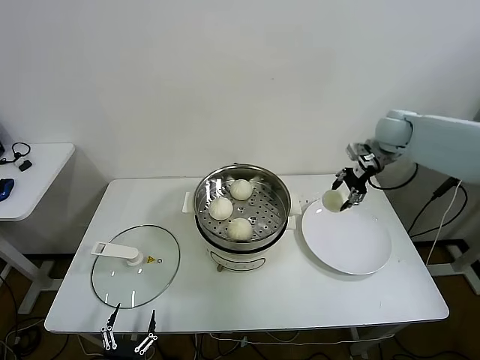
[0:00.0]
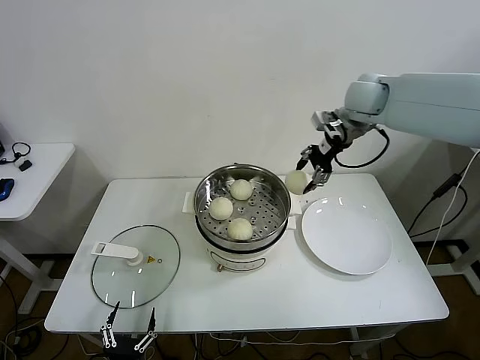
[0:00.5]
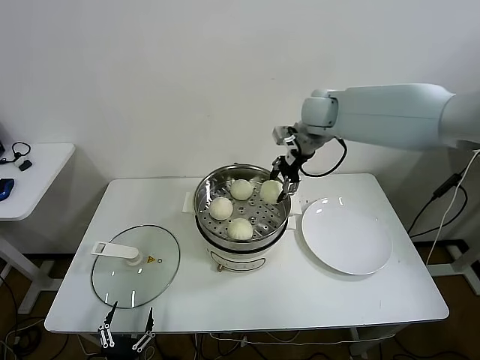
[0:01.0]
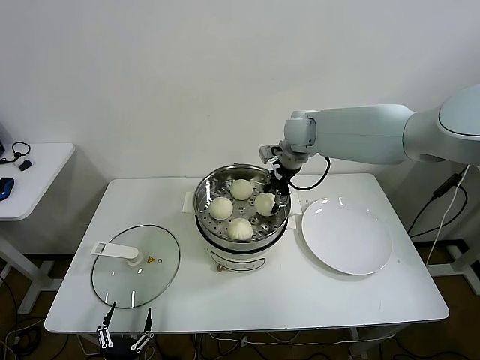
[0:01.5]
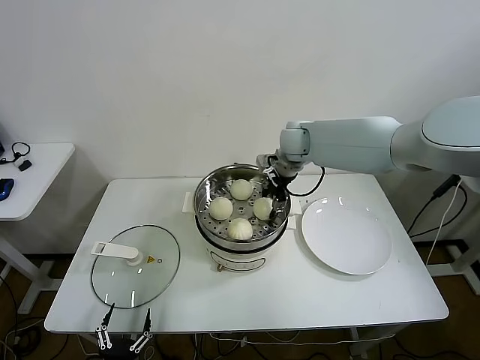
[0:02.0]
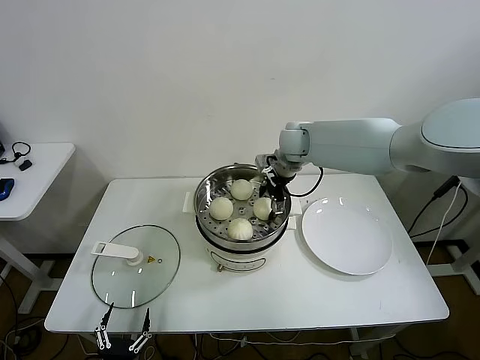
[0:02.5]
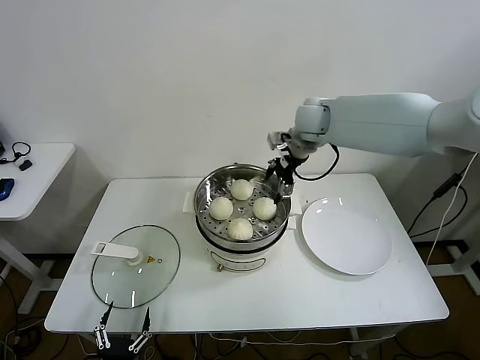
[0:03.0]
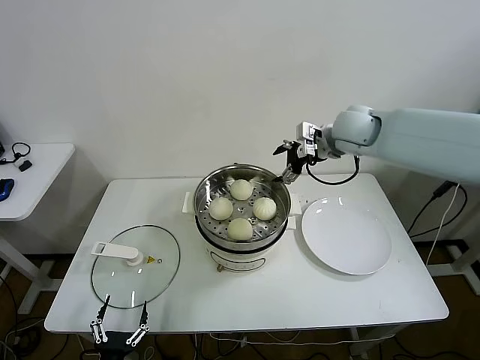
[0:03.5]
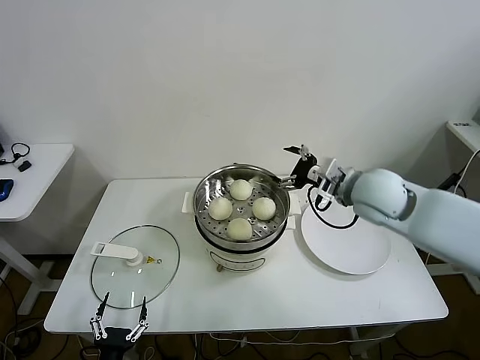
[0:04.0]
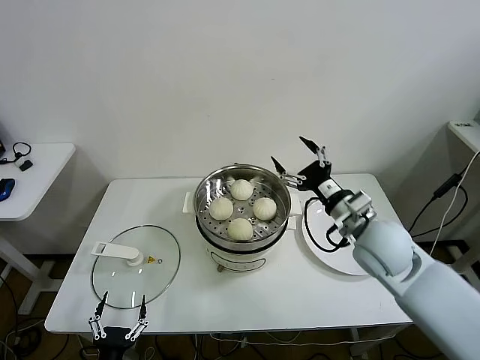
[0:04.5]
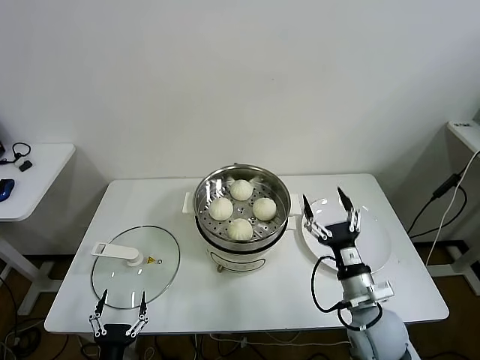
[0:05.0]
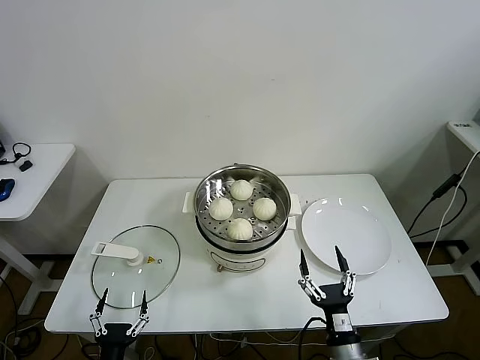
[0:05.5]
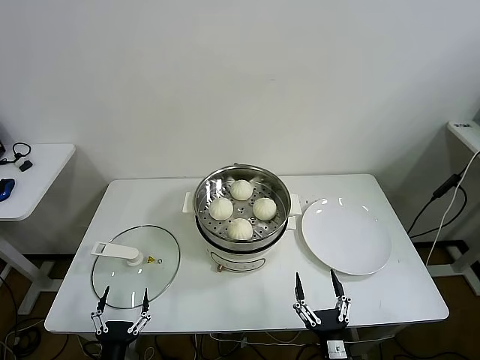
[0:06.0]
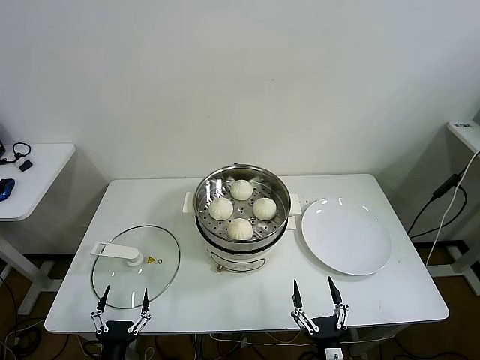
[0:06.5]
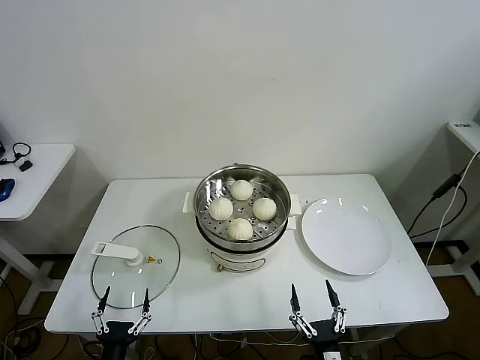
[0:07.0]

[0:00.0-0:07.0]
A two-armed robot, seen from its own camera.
Task of the whole recording: take steamed baozi put them in steamer.
Step, 0:00.0 to 0:03.0: Place the baozi on the steamer with right gripper.
0:00.0 to 0:02.0: The right gripper moves to the left, approximately 25 cm.
0:02.0 to 0:03.5: The right gripper shifts roughly 15 cm to the right, upward and backward, and opens up.
0:03.5 to 0:05.0: The right gripper moves backward and downward, approximately 40 cm.
0:05.0 to 0:07.0: The right gripper heads backward and downward, covering about 20 cm.

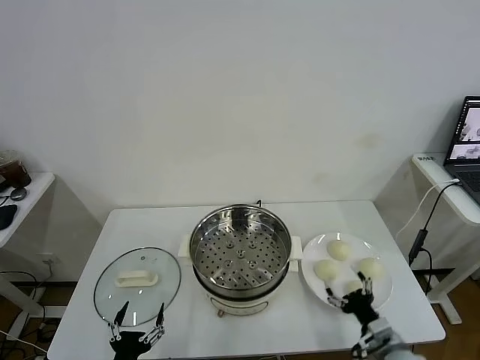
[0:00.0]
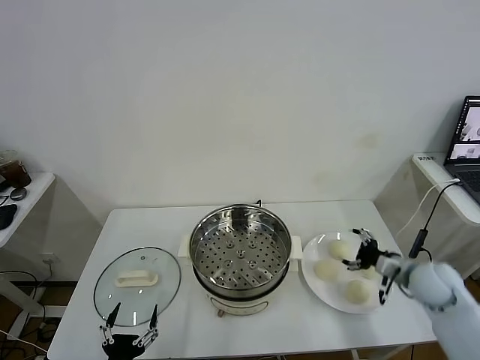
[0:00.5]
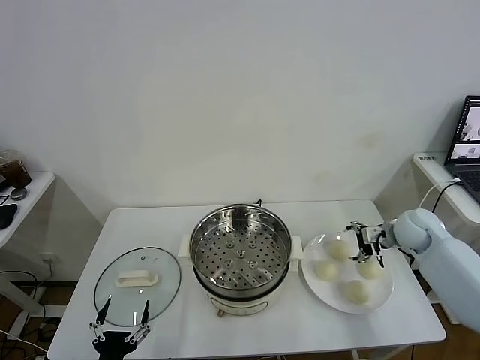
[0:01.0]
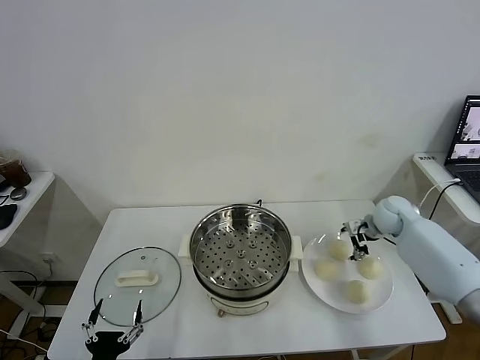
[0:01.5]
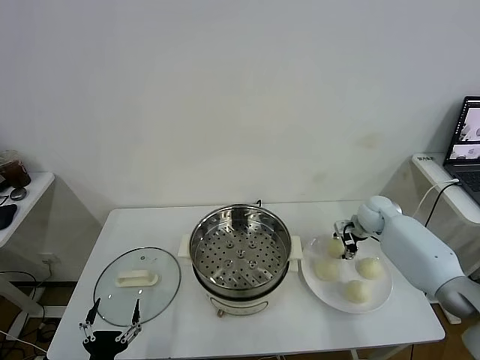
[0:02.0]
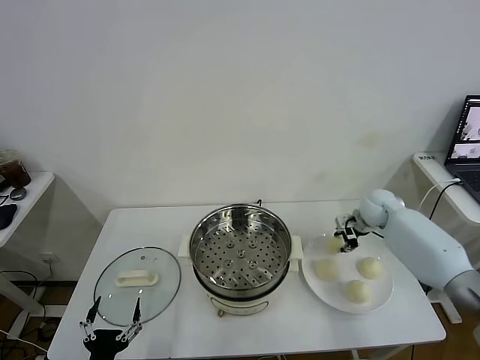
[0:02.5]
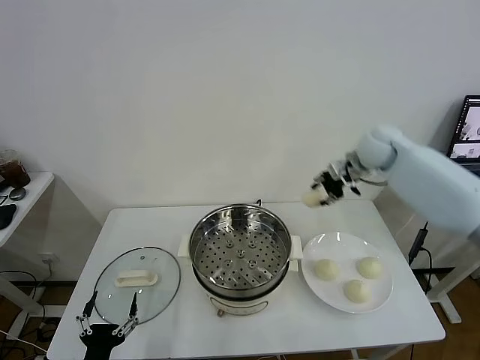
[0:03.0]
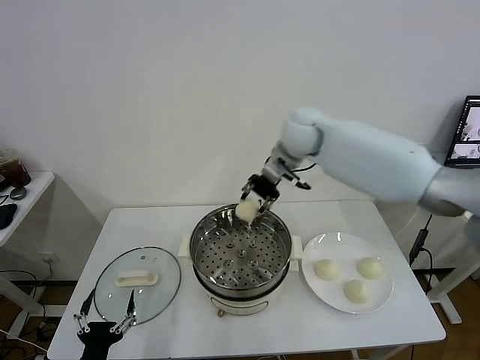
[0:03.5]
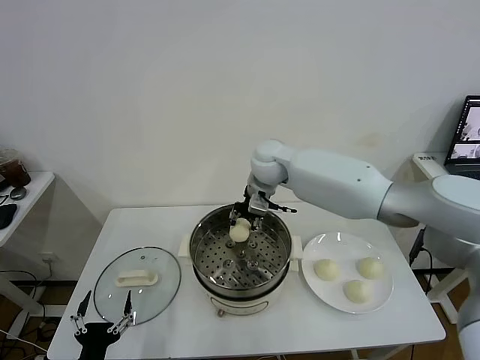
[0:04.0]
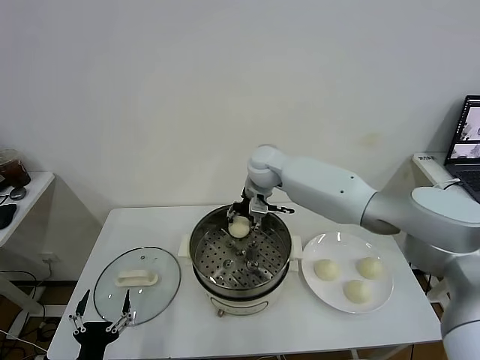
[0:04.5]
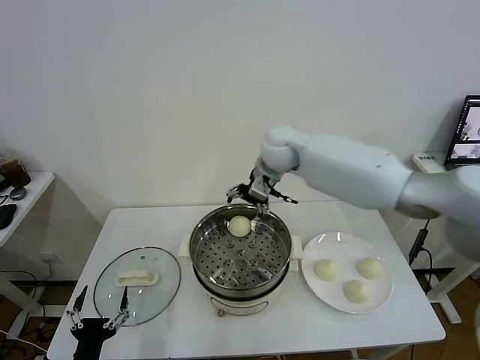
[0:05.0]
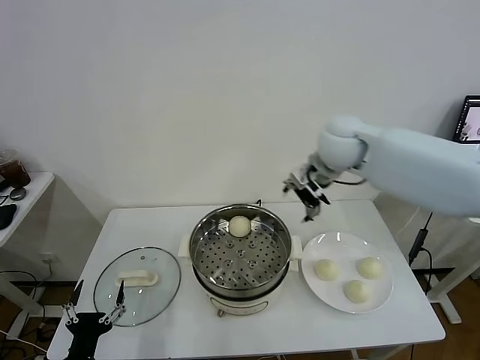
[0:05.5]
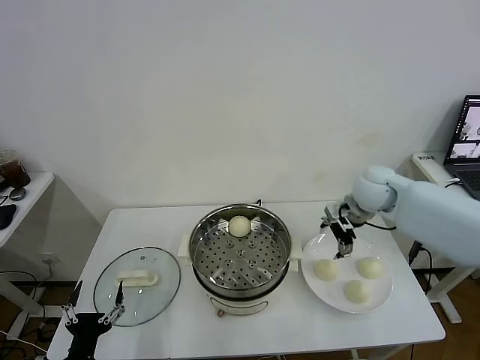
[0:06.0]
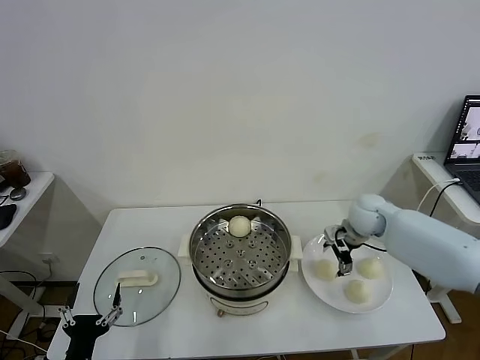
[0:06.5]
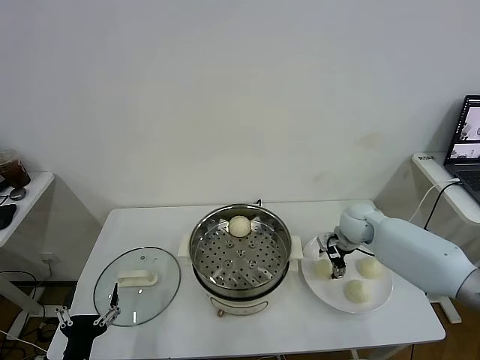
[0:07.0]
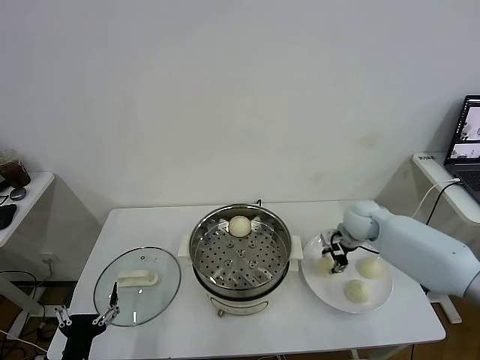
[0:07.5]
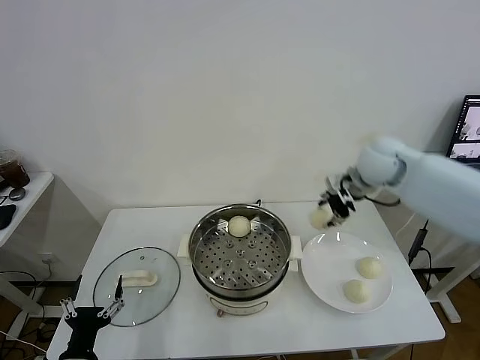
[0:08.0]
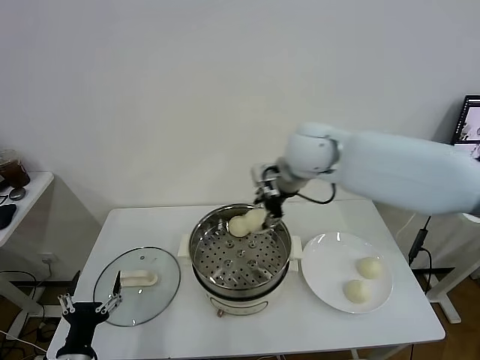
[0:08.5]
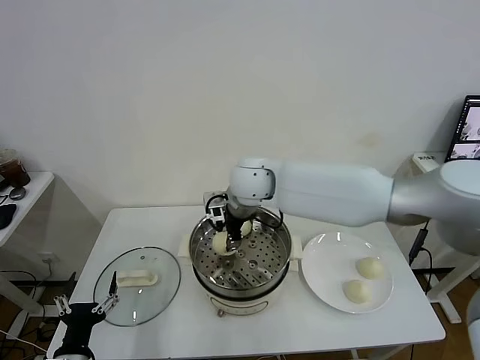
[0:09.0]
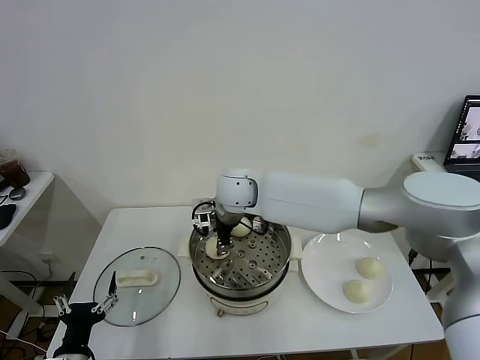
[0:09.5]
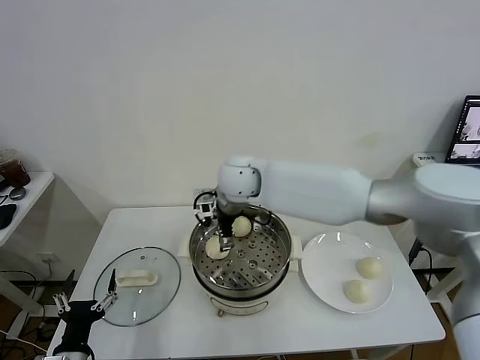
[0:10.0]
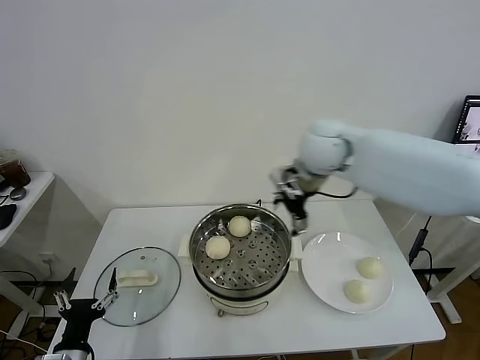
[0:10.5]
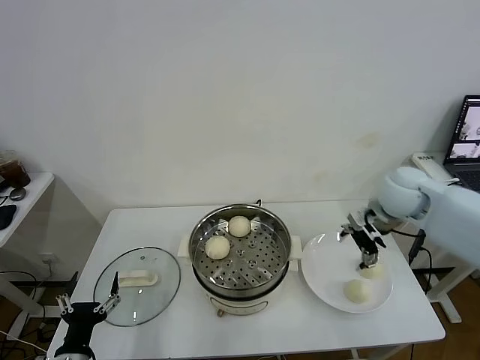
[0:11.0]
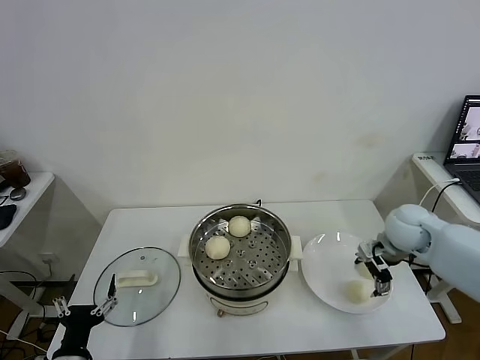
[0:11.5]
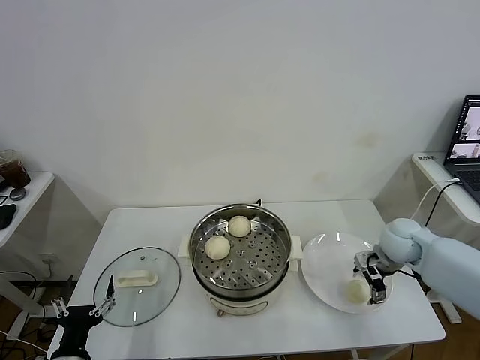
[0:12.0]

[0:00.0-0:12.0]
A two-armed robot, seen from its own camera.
Task of the whole recording: take steamed baozi put them in steamer.
Step, 0:00.0 to 0:02.0: Grasp the baozi in the plate with right gripper.
Step, 0:02.5 to 0:04.5: Place the baozi on the steamer with right gripper.
Step, 0:05.0 to 0:07.0: Grasp the baozi in the plate with right gripper.
Step, 0:07.5 to 0:10.0: Place the baozi on the steamer with right gripper.
0:02.0 to 0:04.0: The right gripper is displaced to the left and upward by roughly 35 cm.
0:04.0 to 0:06.0: The right gripper travels to the right by approximately 25 cm, and opens up.
0:06.0 to 0:08.0: The right gripper shifts about 5 cm upward, and closes.
0:08.0 to 0:10.0: The right gripper is displaced to the left by about 30 cm, and opens.
0:10.0 to 0:12.0: The right gripper goes some 40 cm to the right.

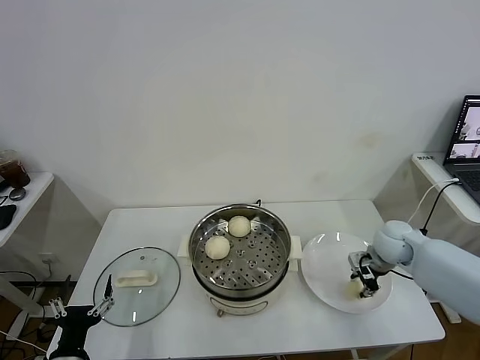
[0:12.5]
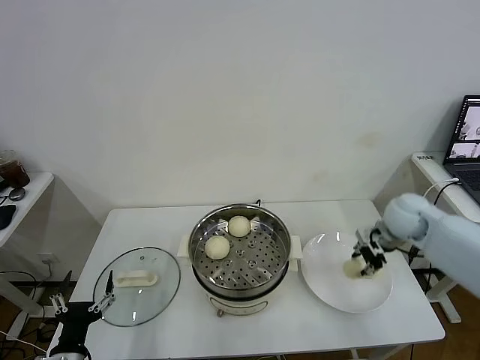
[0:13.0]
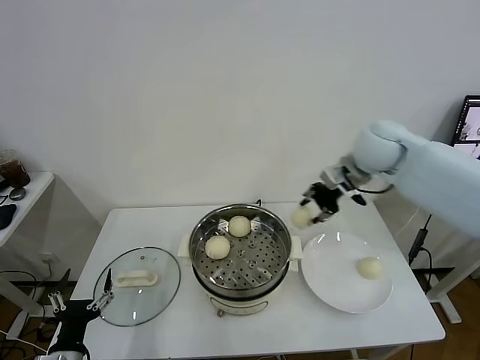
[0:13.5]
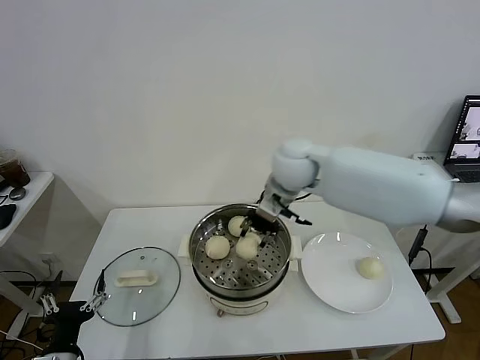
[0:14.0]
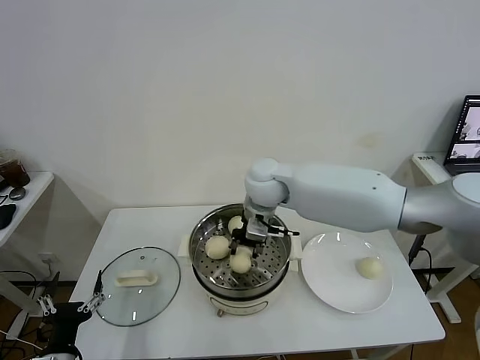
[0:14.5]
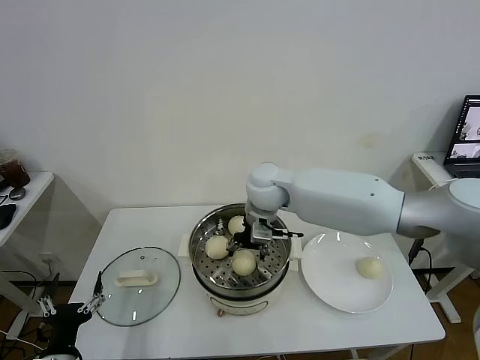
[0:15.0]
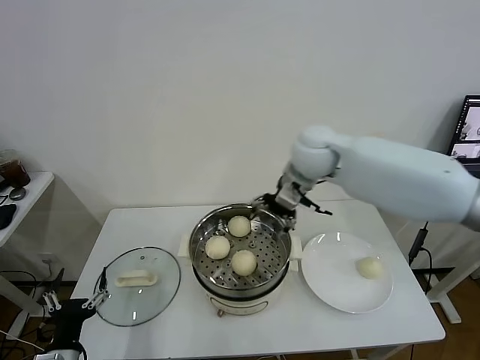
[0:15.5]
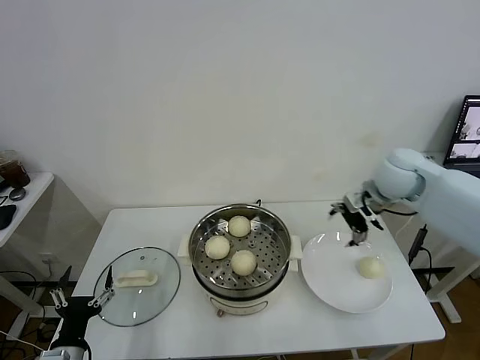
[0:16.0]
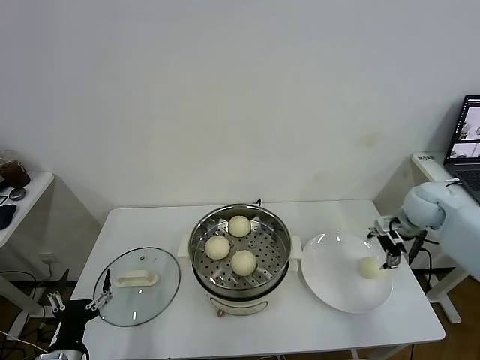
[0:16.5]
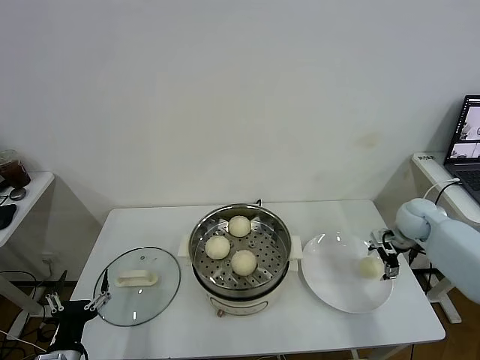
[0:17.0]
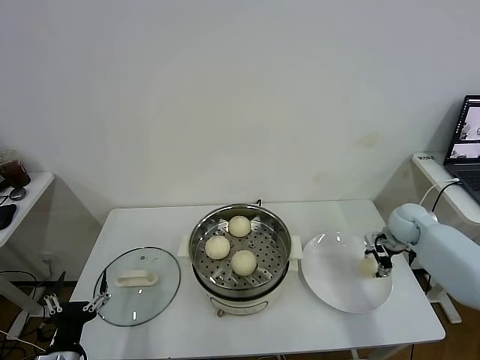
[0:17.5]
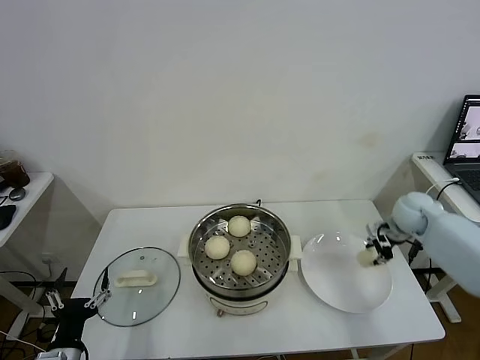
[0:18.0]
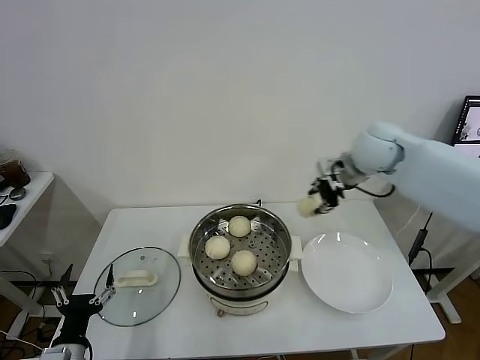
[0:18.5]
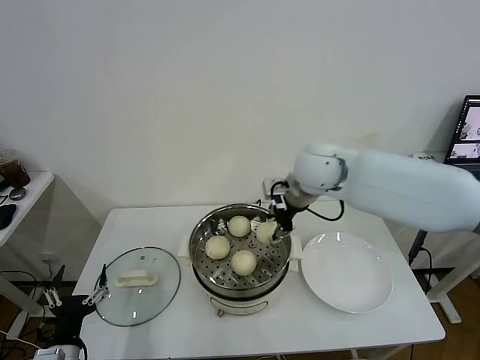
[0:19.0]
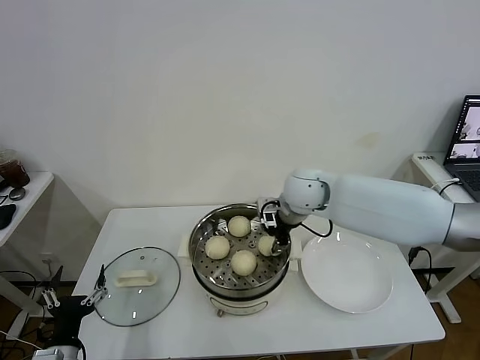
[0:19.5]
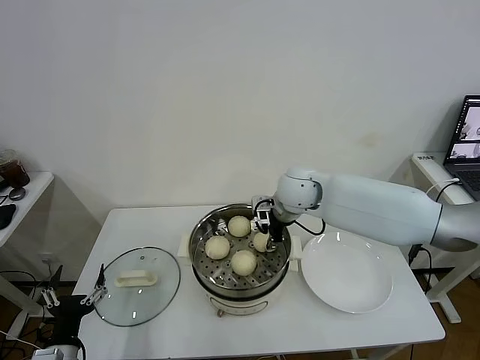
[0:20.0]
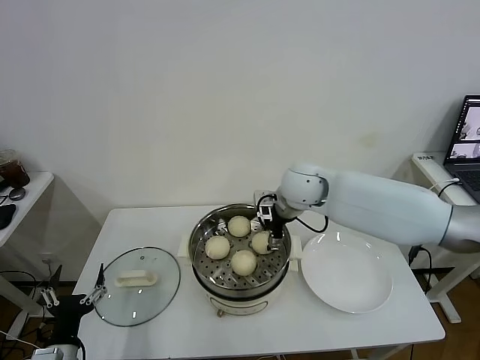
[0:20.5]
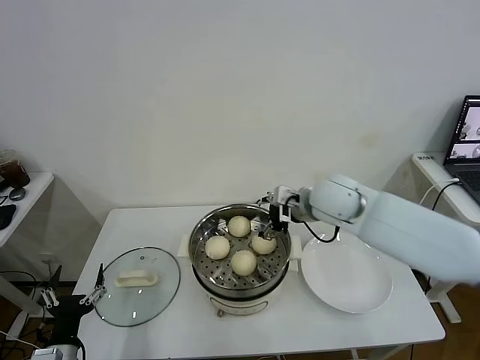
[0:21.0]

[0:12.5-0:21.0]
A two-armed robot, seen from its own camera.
Task of the whole recording: take steamed baozi put them in steamer.
Step, 0:13.0 to 0:15.0: Place the baozi on the steamer with right gripper.
Step, 0:15.5 to 0:17.5: Grasp the baozi in the plate with right gripper.
Step, 0:18.0 to 0:20.5: Place the baozi on the steamer with right gripper.
0:12.5 to 0:14.5: The right gripper travels to the left and upward by approximately 35 cm.
0:14.5 to 0:16.5: The right gripper heads to the right, covering approximately 35 cm, and opens up.
0:16.5 to 0:19.0: The right gripper heads to the left and upward, covering about 30 cm, and closes its fingers.
0:19.0 to 0:21.0: The right gripper ends up roughly 5 cm from where it was, and opens its fingers.
